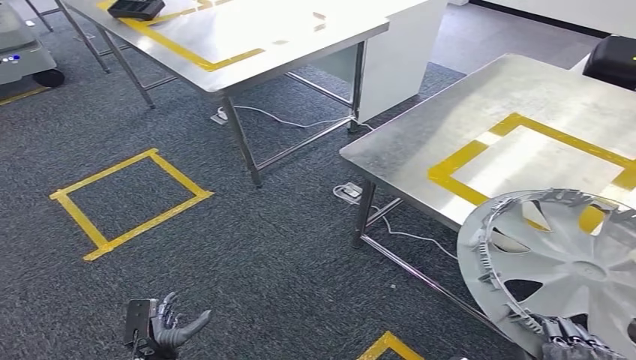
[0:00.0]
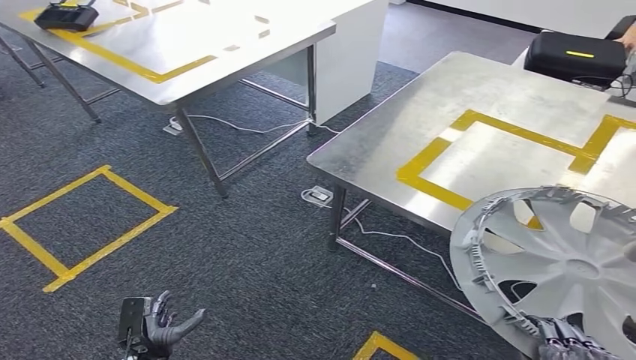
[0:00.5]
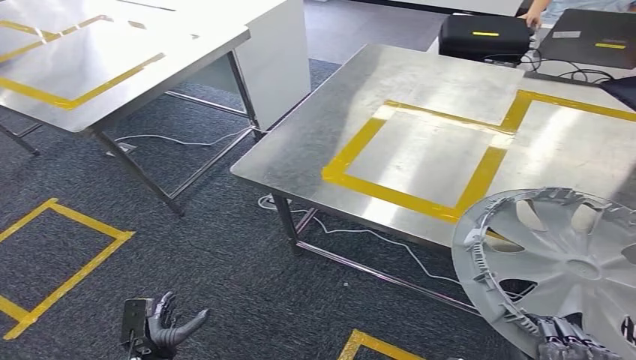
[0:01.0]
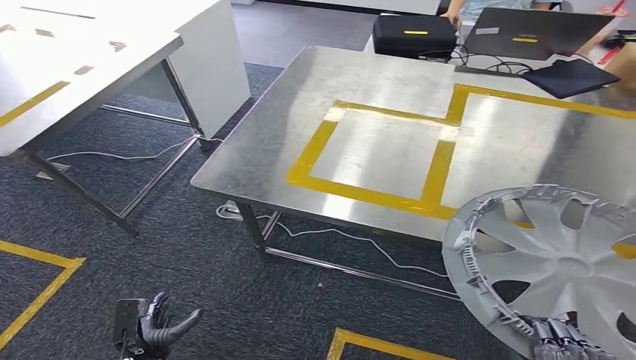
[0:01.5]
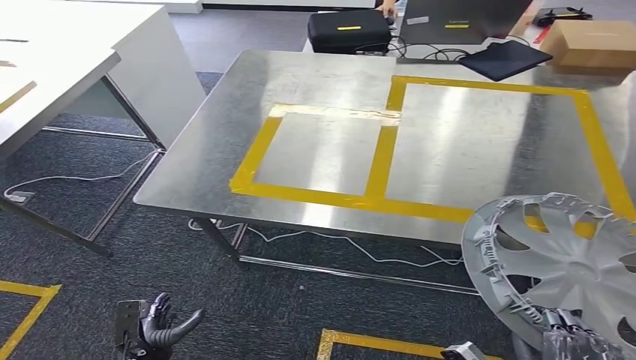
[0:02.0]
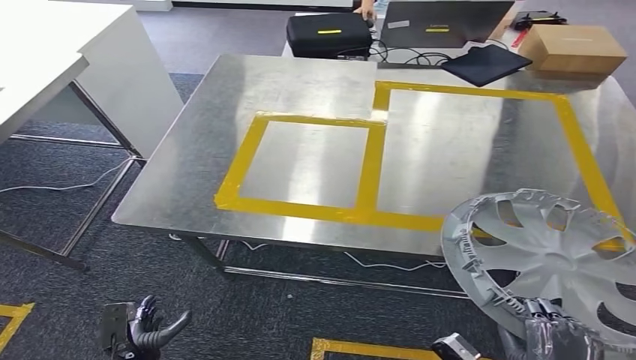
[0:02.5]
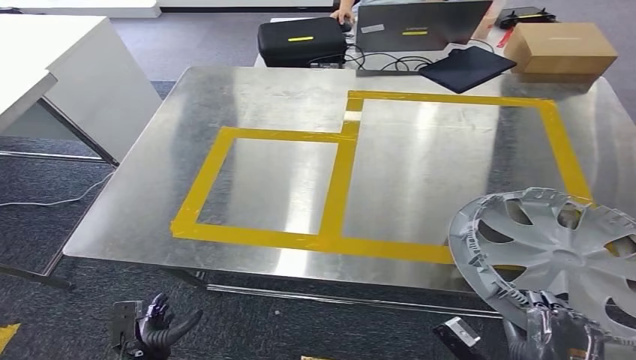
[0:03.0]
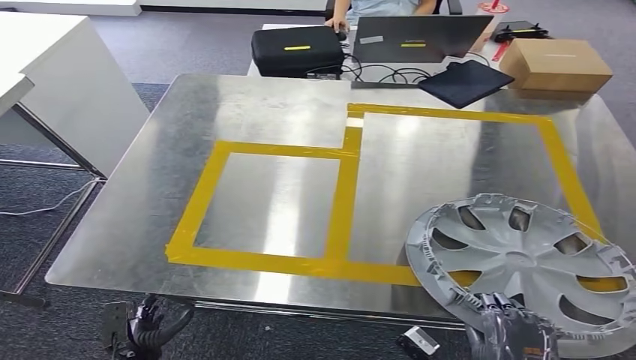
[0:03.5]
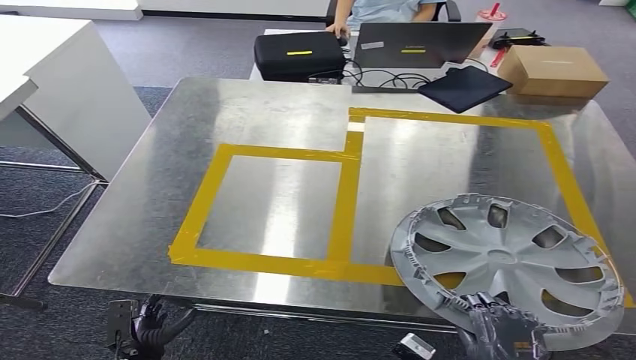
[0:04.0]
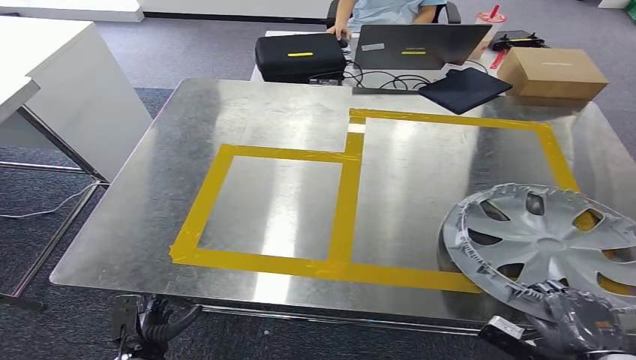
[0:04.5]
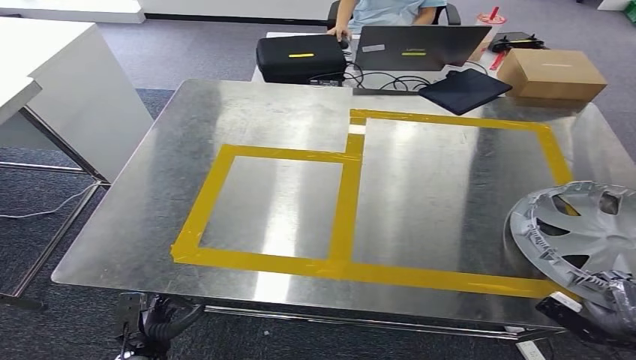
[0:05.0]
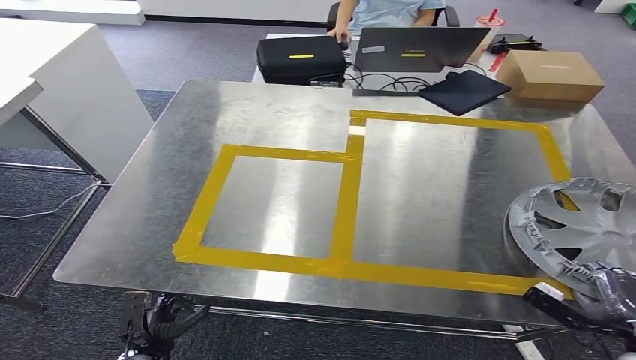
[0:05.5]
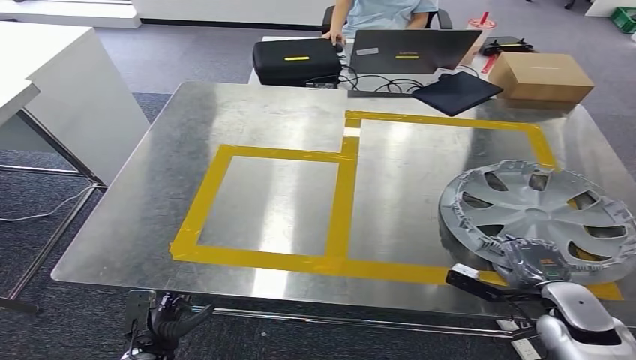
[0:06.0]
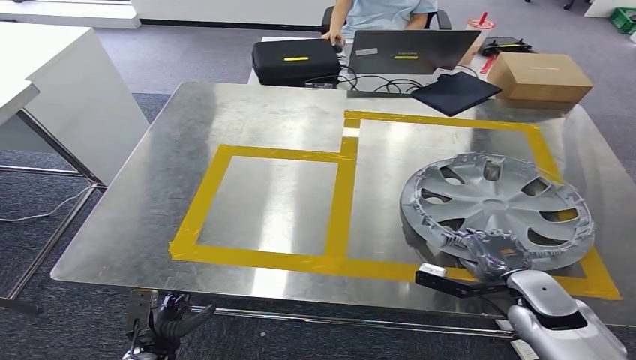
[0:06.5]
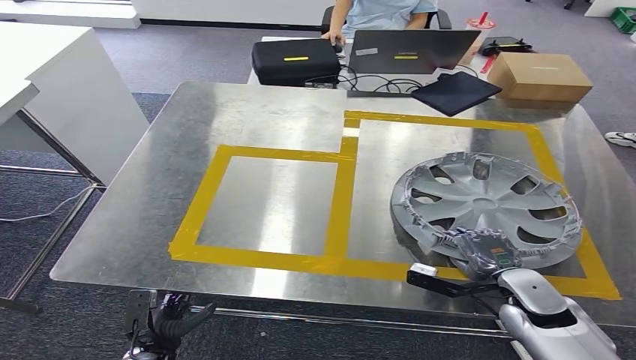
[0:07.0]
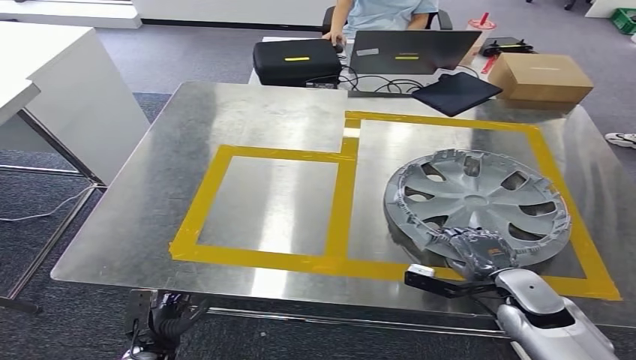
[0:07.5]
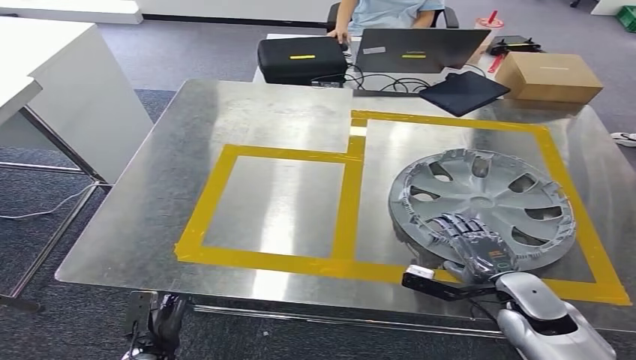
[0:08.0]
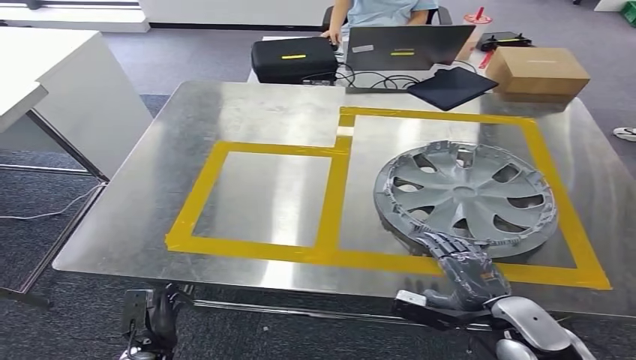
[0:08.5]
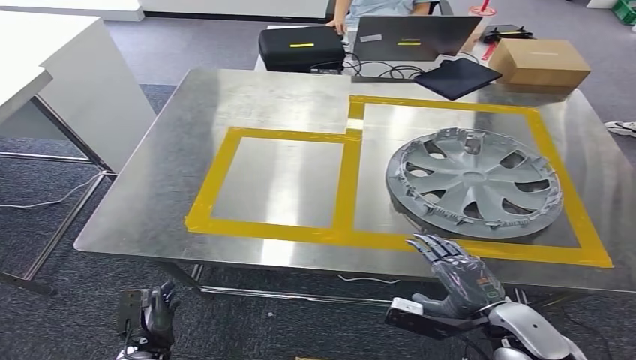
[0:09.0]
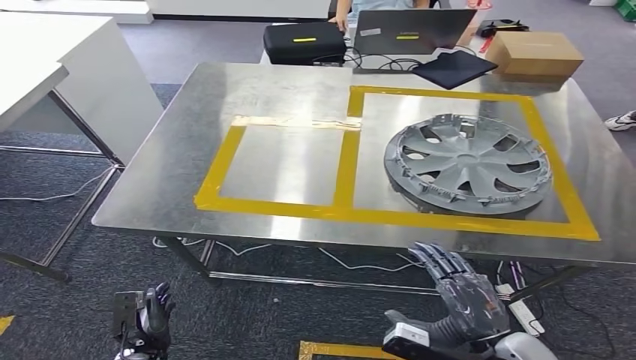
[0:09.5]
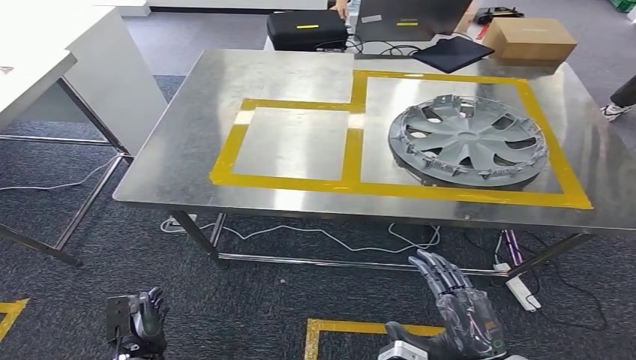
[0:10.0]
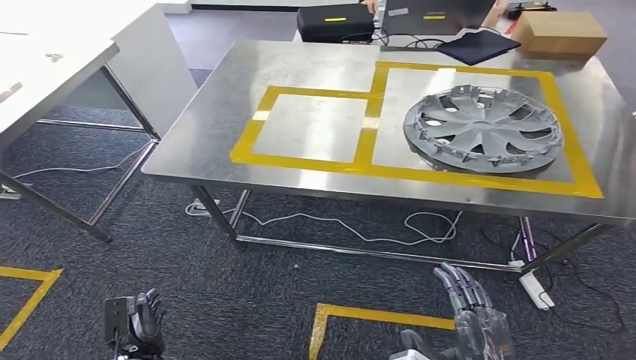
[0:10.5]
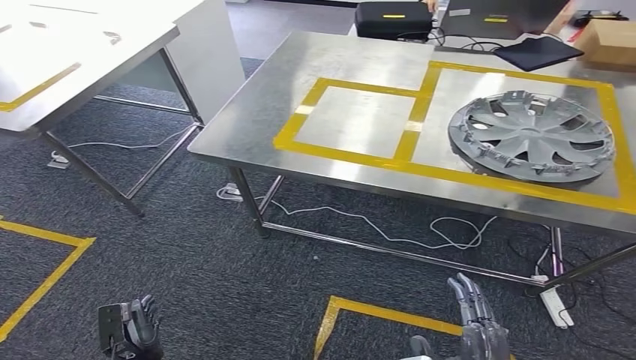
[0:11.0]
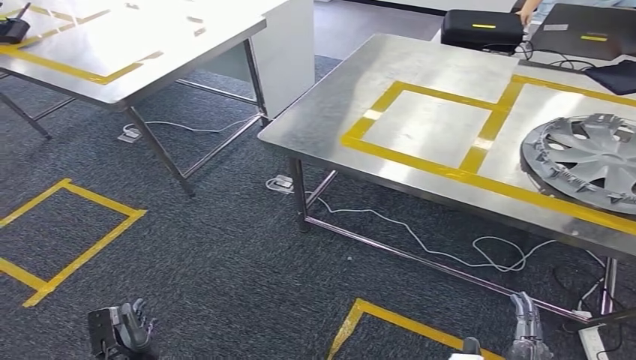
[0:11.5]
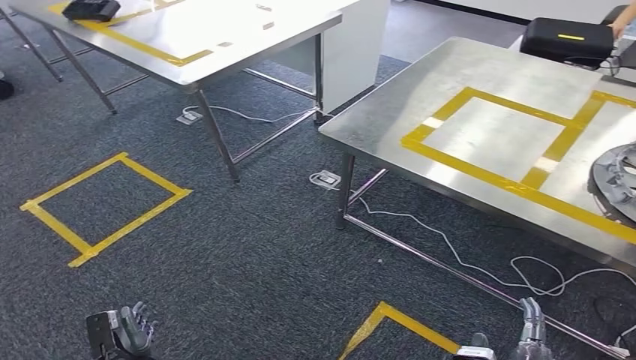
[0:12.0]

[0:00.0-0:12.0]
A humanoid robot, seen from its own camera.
Step, 0:00.0 to 0:02.5: Move the small component to the workbench.
Step, 0:03.0 to 0:09.5: Insert the small component into the corresponding slot on the workbench.

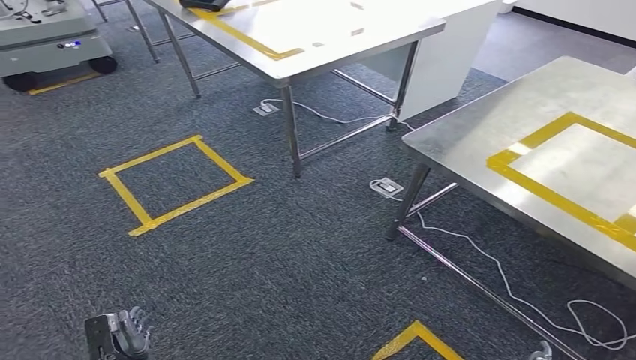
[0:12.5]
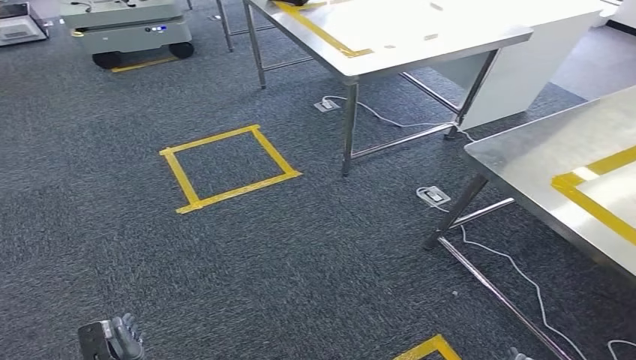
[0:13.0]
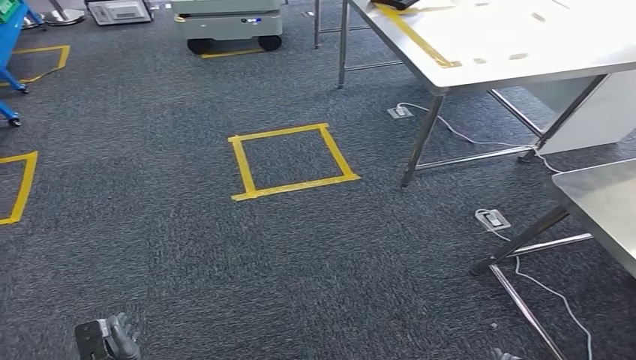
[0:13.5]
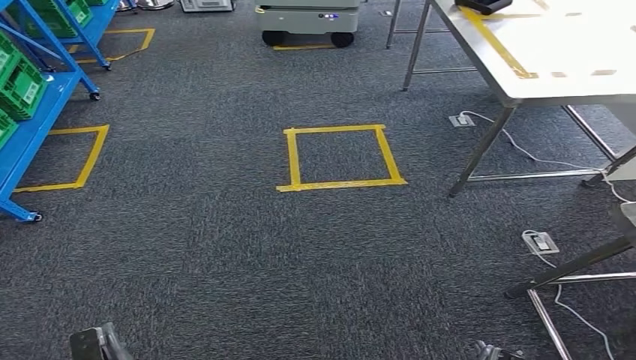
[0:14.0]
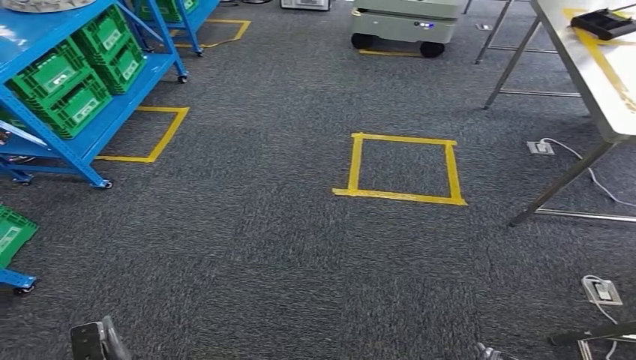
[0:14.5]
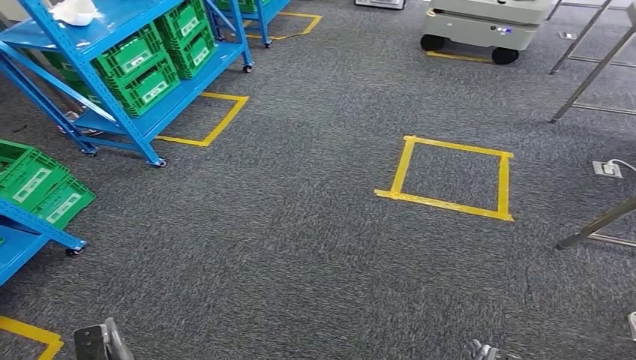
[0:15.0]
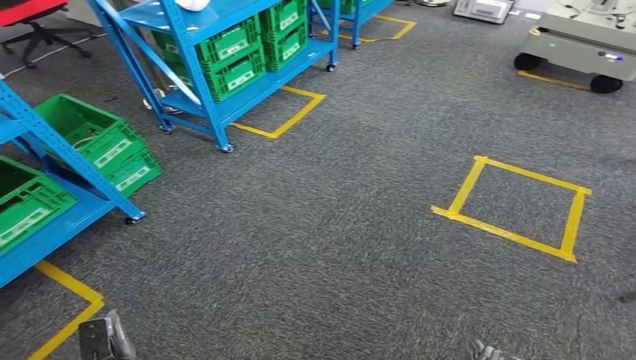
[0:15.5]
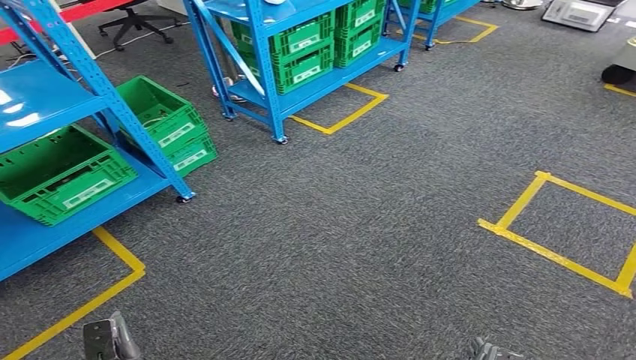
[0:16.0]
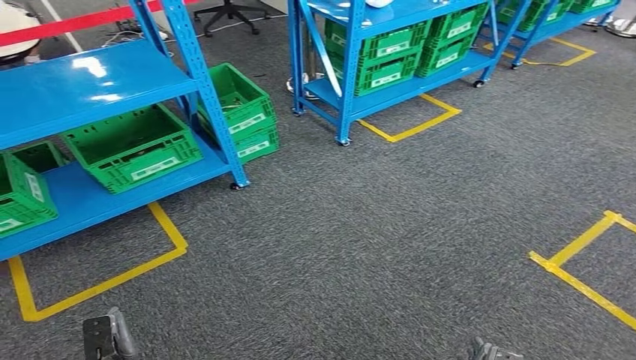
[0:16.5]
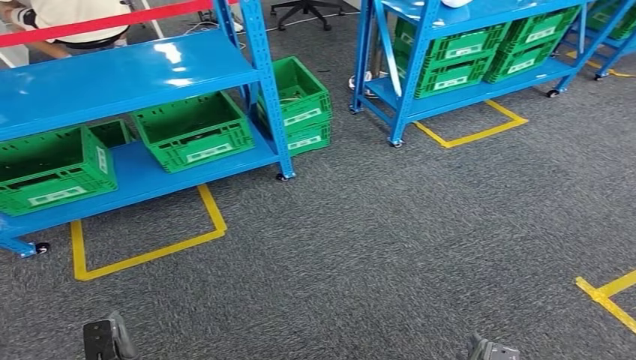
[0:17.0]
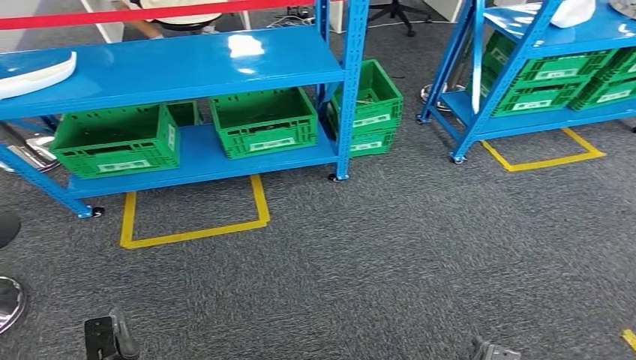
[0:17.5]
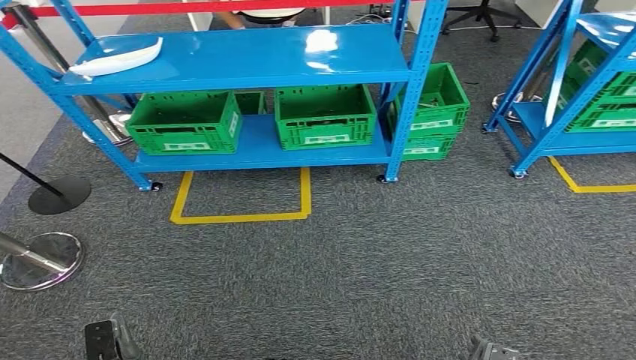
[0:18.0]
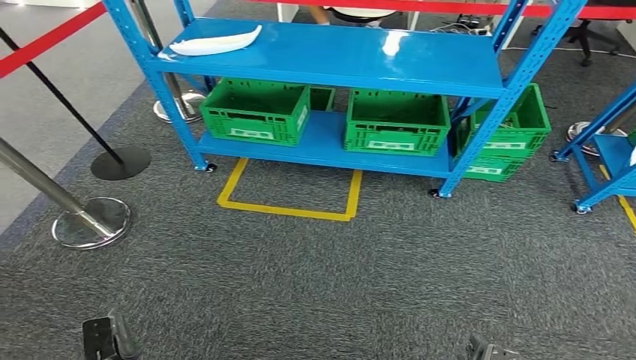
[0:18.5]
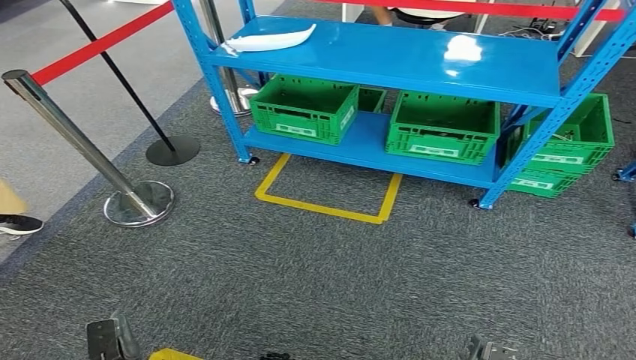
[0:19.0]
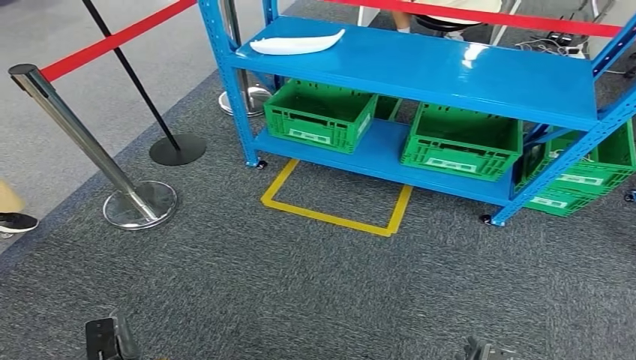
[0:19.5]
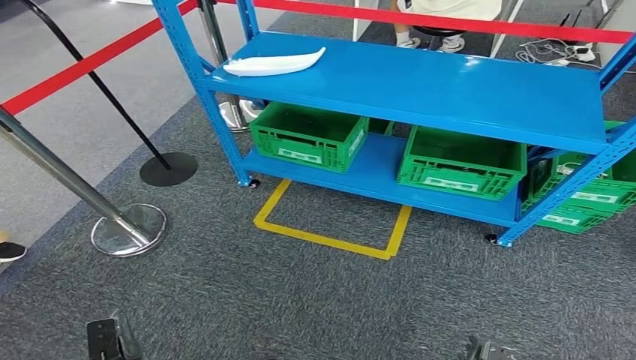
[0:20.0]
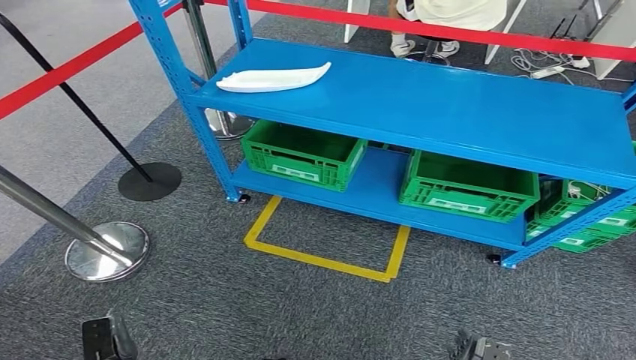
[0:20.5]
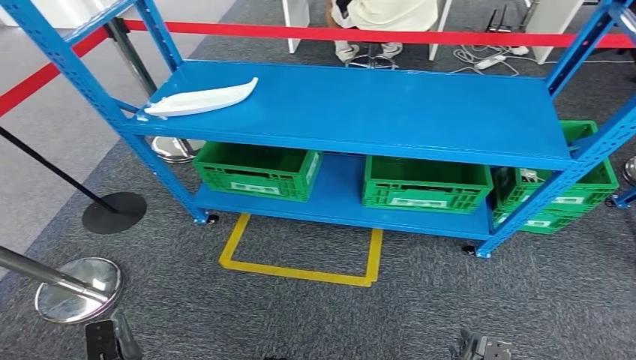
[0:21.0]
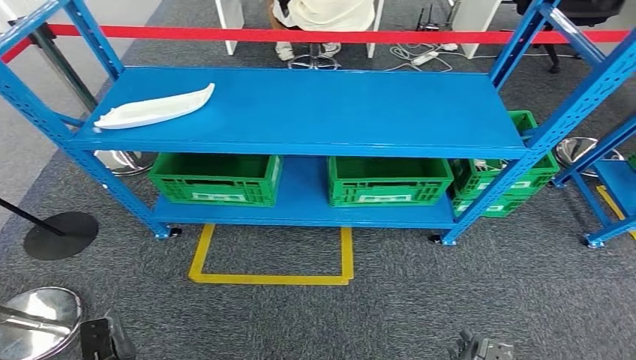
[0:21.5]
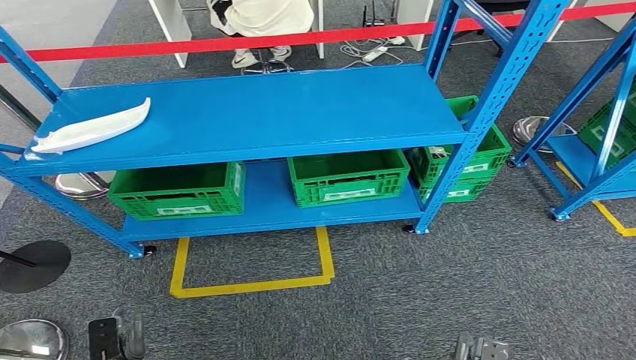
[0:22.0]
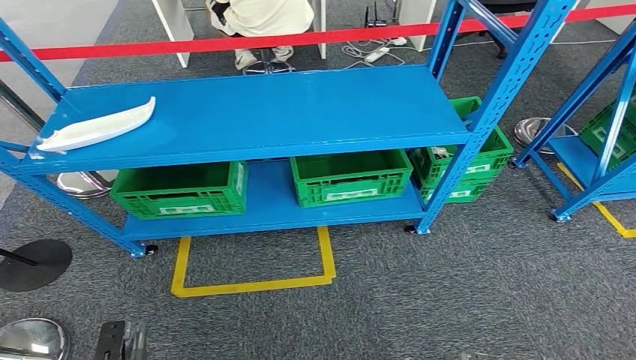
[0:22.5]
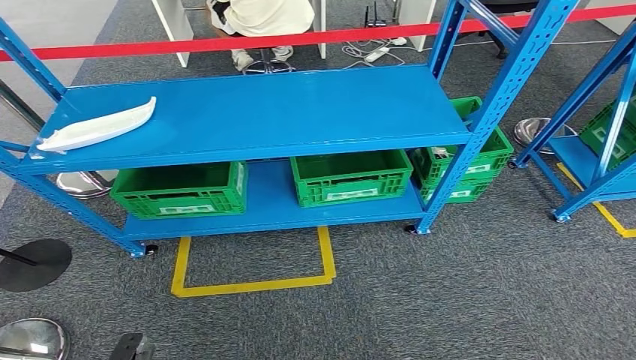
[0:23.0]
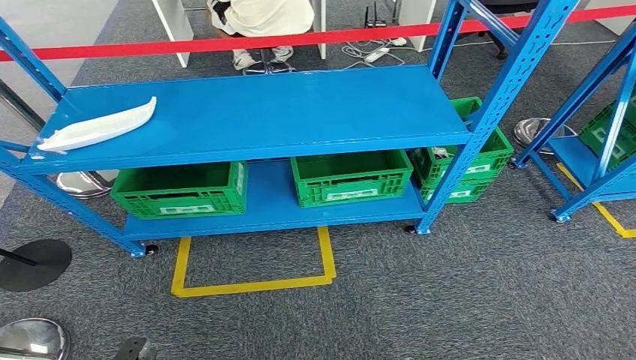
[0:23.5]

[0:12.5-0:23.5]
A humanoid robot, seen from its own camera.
Step, 0:12.5 to 0:23.0: Return to the initial position at the workbench.
